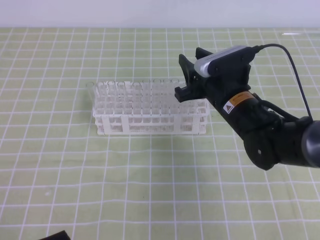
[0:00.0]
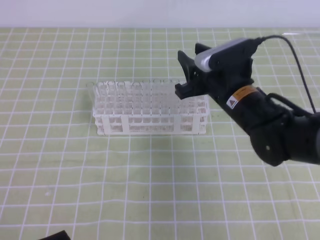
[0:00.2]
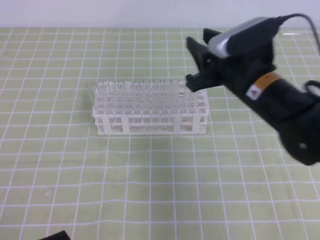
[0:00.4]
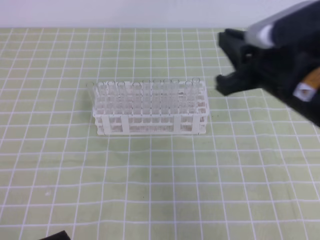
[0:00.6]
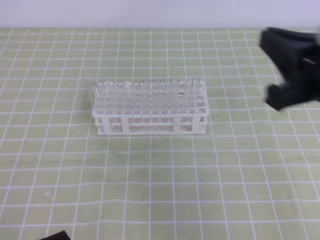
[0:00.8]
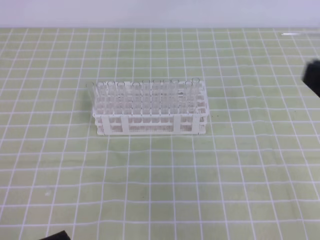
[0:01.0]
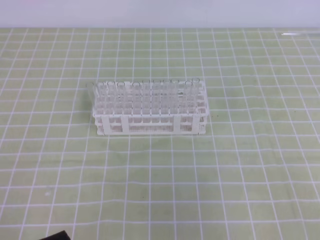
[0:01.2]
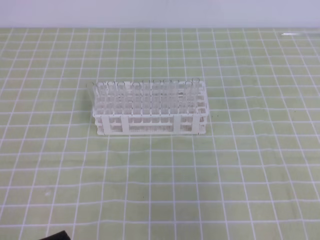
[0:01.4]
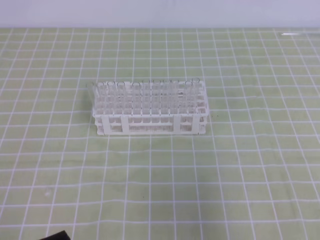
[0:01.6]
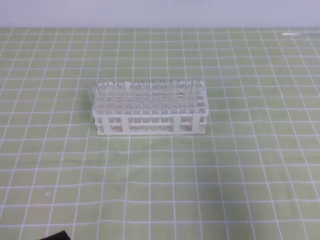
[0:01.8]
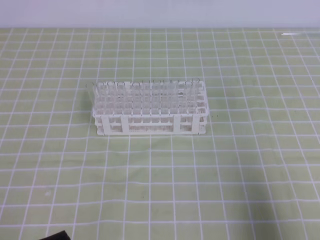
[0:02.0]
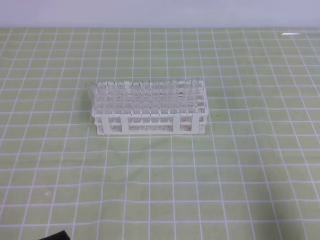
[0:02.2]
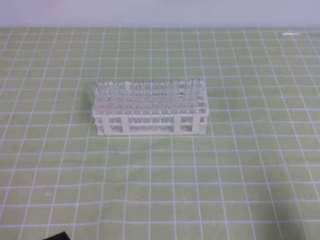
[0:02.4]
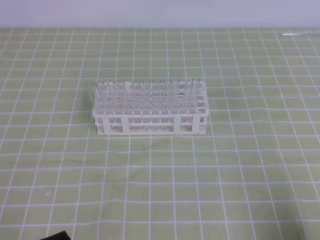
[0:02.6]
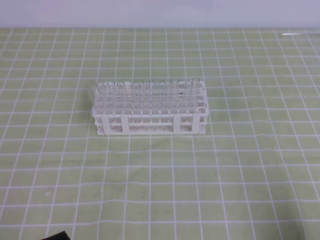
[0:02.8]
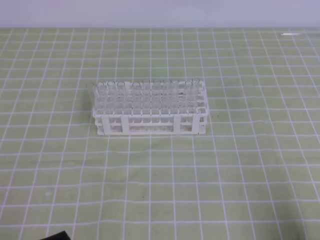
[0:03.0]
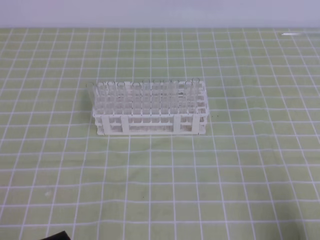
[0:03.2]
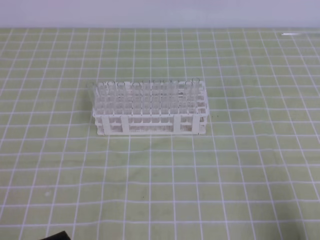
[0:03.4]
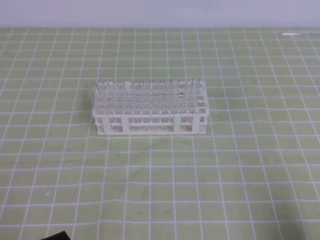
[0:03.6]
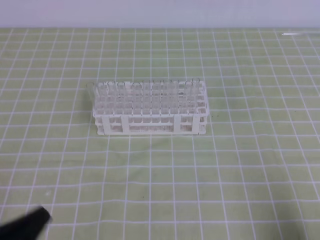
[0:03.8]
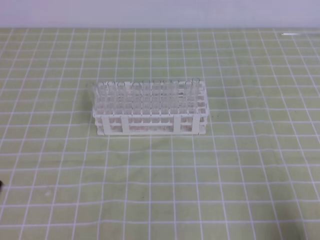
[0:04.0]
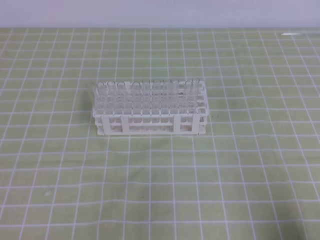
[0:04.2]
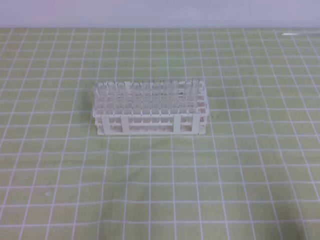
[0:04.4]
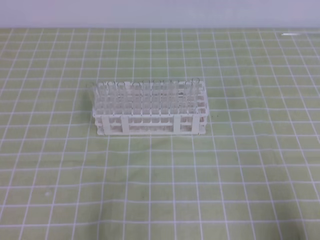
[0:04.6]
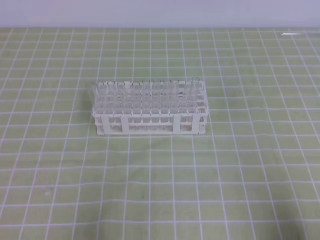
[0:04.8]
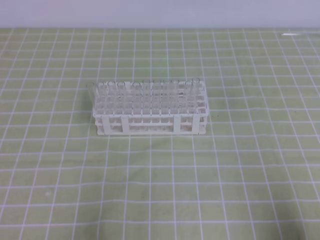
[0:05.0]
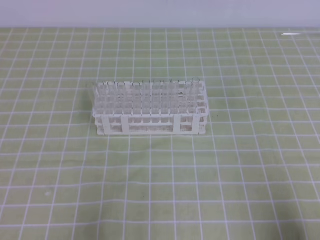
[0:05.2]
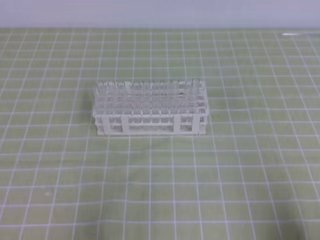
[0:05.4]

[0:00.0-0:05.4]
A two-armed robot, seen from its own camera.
0.0 to 1.4 s: The right gripper goes roughly 35 cm backward, to the right and upward, and closes.
1.4 to 2.8 s: The right gripper moves downward, approximately 20 cm.

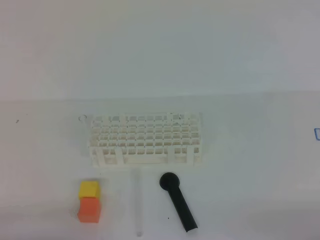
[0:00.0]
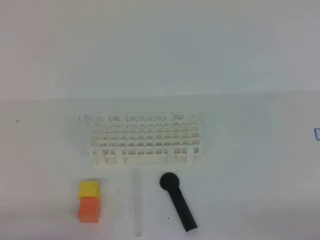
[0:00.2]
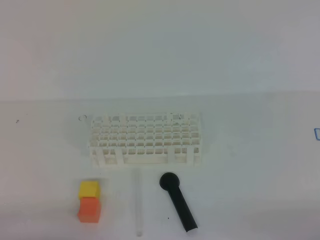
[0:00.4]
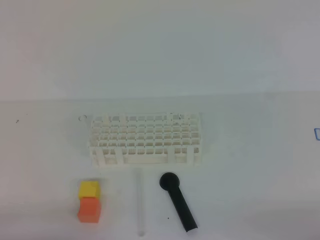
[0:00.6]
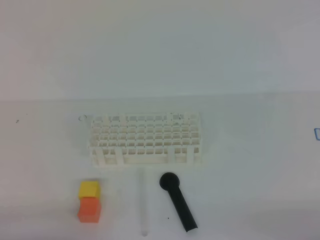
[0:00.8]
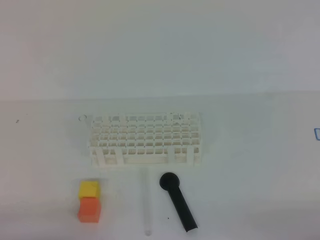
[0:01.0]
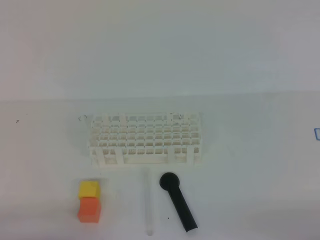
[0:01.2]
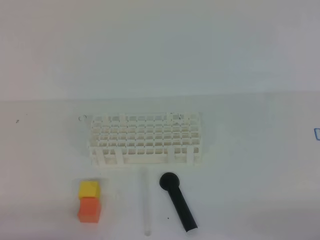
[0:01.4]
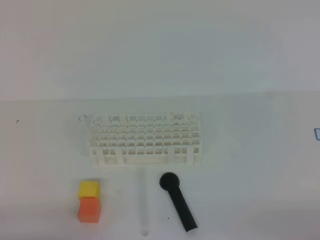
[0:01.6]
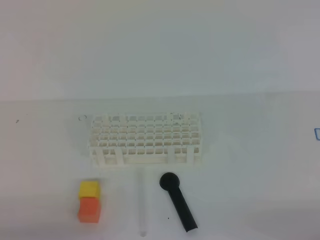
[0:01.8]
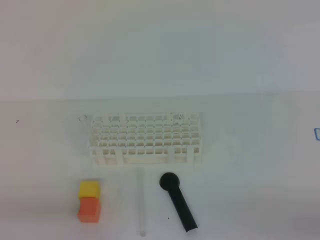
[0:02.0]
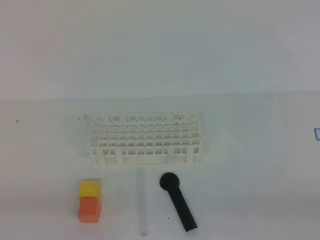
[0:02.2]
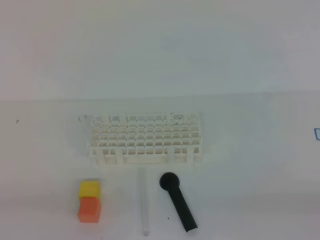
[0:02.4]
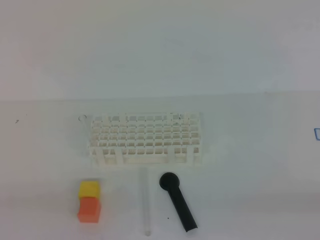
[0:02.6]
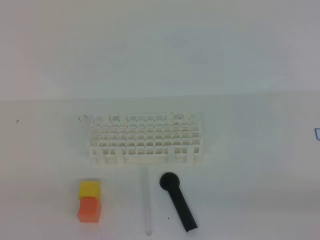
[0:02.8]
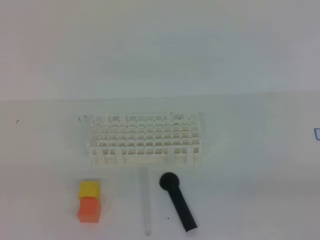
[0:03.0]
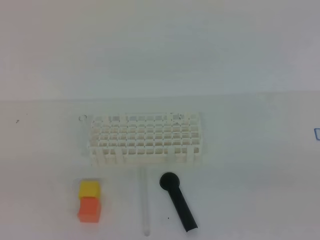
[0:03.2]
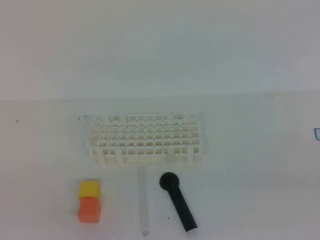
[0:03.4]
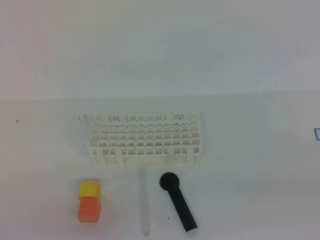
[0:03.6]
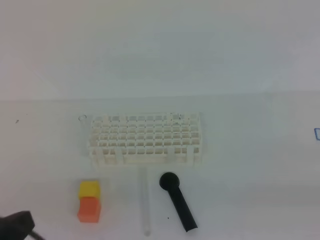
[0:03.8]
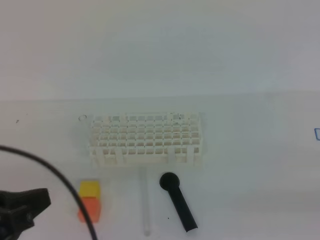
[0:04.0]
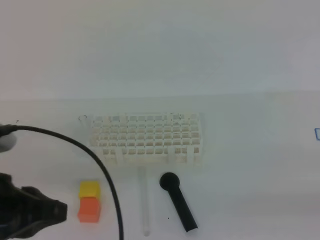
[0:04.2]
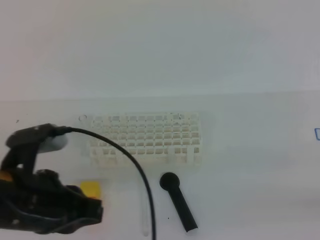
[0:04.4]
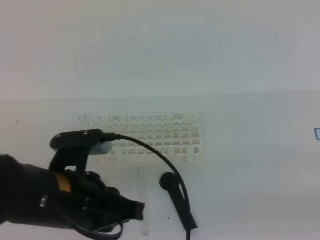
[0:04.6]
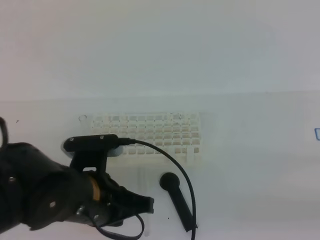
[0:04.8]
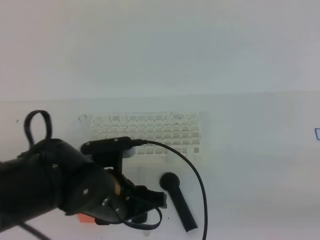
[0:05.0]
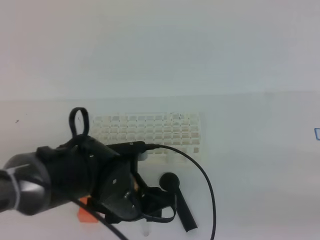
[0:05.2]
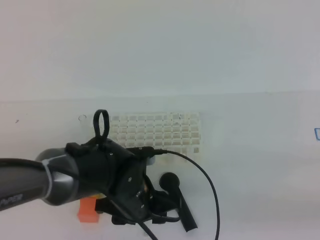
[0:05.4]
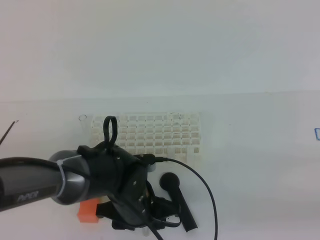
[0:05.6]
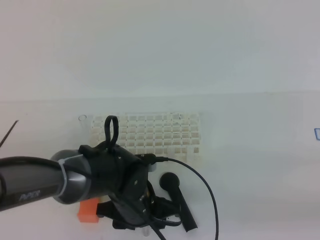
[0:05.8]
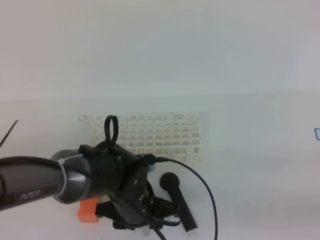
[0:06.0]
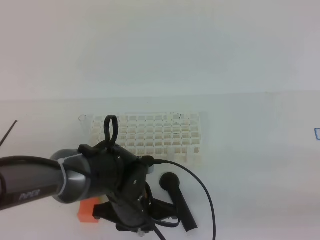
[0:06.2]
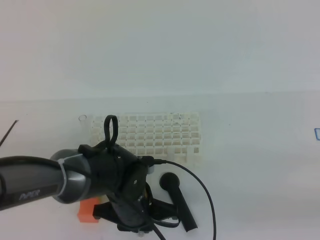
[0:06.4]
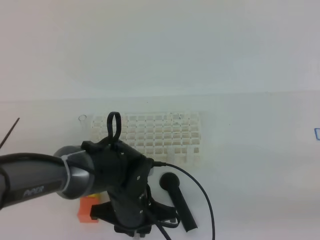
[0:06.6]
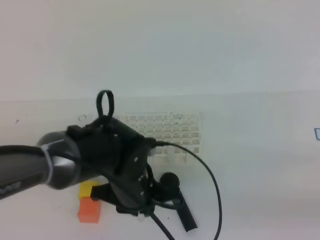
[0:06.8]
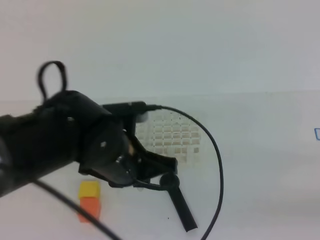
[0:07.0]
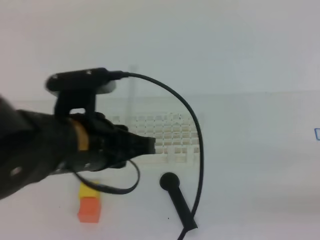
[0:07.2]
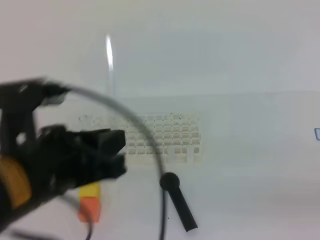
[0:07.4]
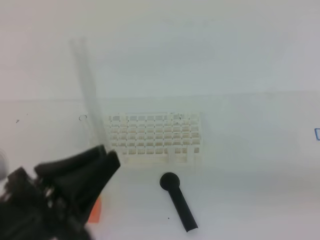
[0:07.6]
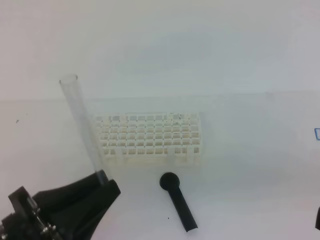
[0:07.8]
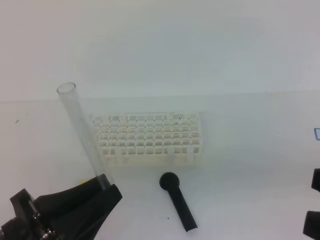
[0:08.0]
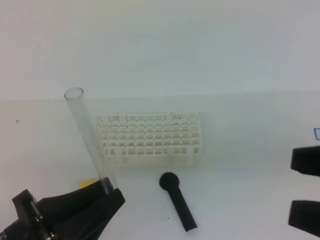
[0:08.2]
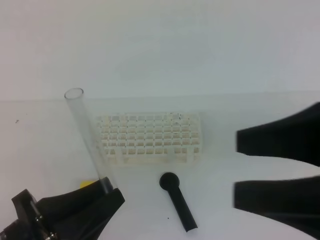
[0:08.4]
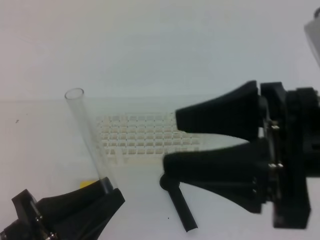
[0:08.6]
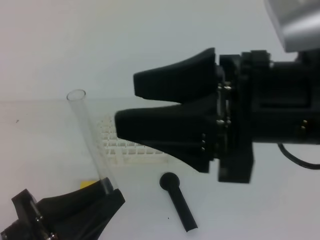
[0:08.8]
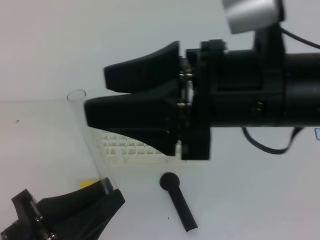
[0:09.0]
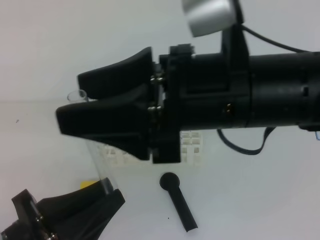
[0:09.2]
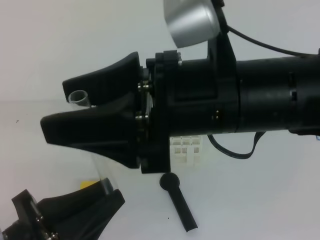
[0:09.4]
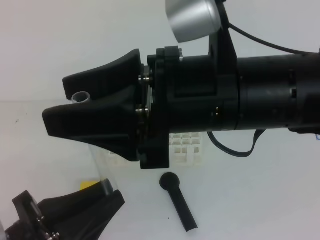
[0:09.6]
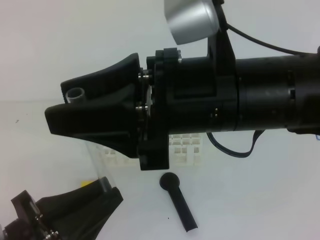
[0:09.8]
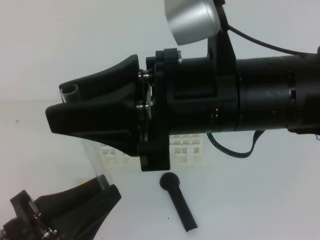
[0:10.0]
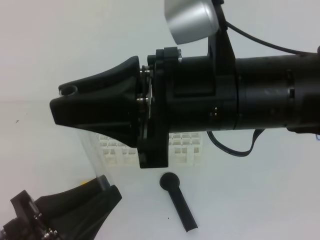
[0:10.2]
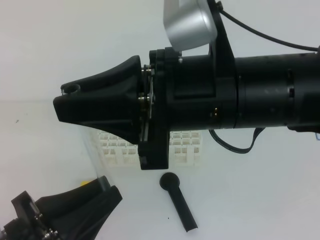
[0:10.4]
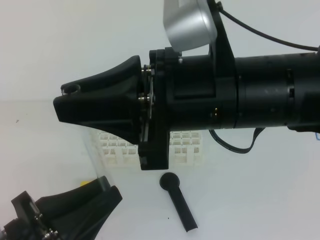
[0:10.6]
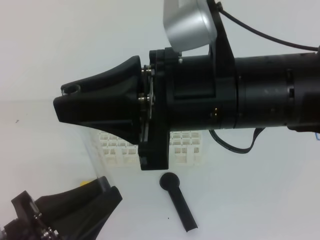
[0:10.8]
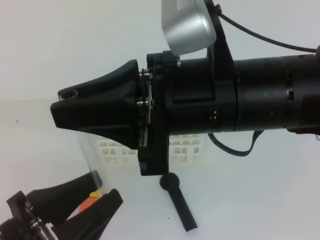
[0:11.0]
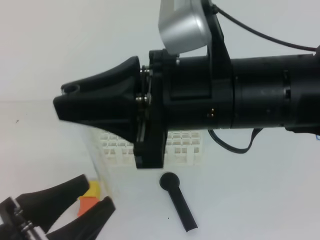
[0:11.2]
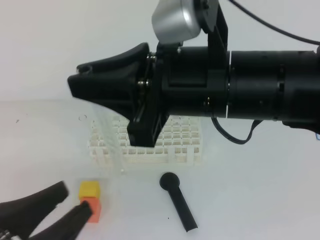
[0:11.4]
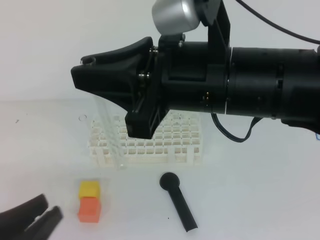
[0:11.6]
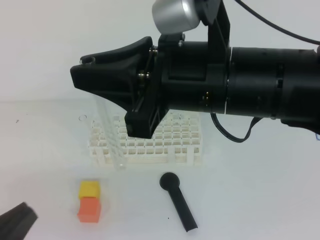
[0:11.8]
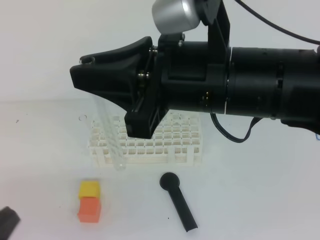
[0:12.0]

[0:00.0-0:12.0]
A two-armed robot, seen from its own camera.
0.0 to 1.6 s: Neither gripper changes place.
3.0 to 4.4 s: The left gripper goes about 15 cm forward and to the right.
4.4 to 6.0 s: The left gripper moves downward, to the right and forward, about 20 cm, and opens up. The right gripper opens.
6.0 to 7.6 s: The right gripper travels to the left by some 5 cm. Meanwhile the left gripper travels upward, backward and to the left by about 25 cm, and closes.
7.6 to 9.0 s: The right gripper moves to the left, forward and upward, approximately 25 cm, and opens its fingers. Meanwhile the left gripper shifts by some 5 cm.
9.0 to 10.4 s: The right gripper closes up.
10.4 to 12.0 s: The left gripper goes about 10 cm to the left, and opens and closes again.

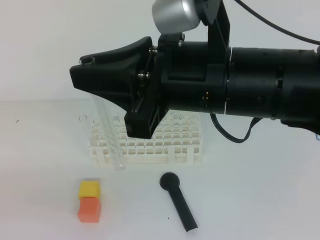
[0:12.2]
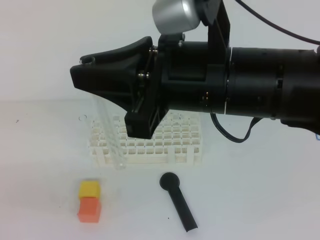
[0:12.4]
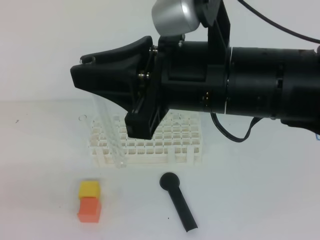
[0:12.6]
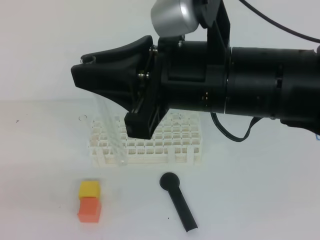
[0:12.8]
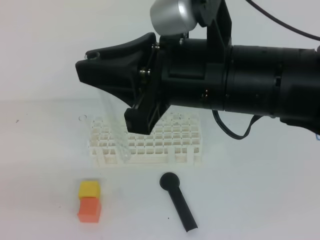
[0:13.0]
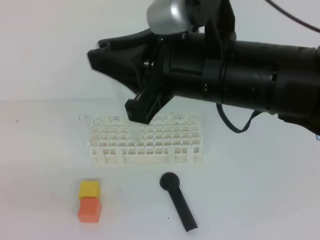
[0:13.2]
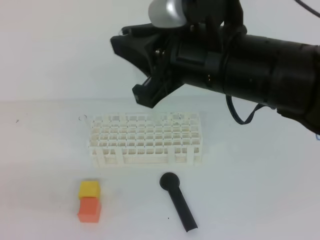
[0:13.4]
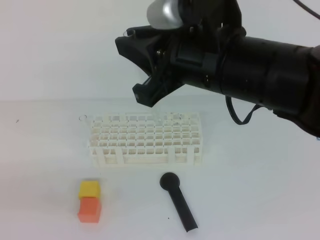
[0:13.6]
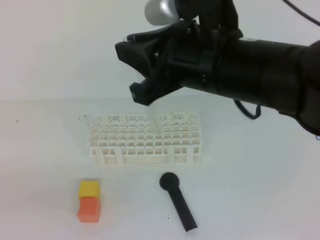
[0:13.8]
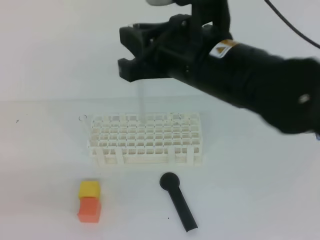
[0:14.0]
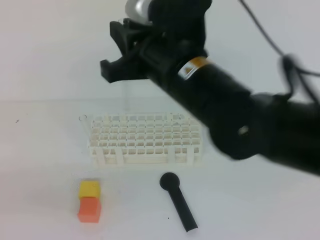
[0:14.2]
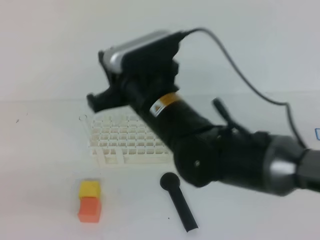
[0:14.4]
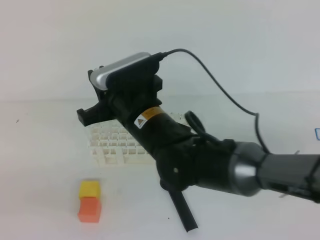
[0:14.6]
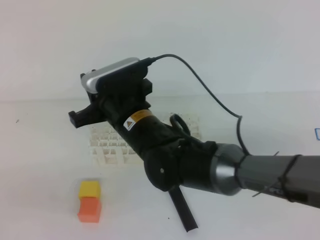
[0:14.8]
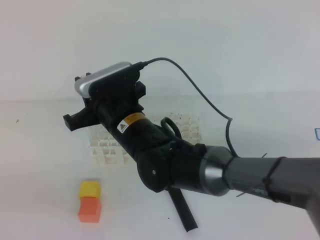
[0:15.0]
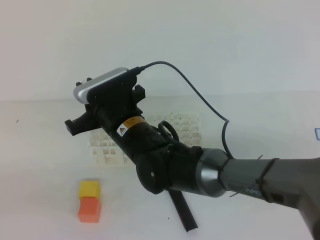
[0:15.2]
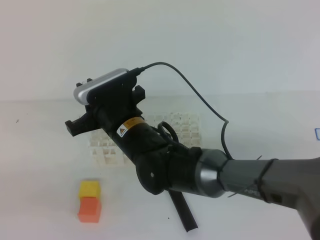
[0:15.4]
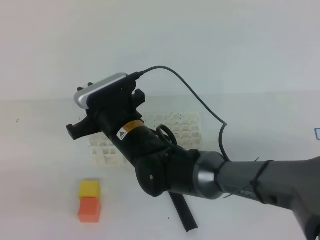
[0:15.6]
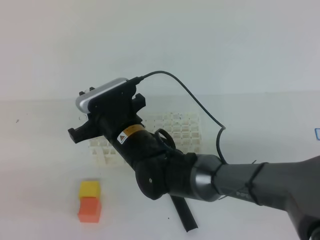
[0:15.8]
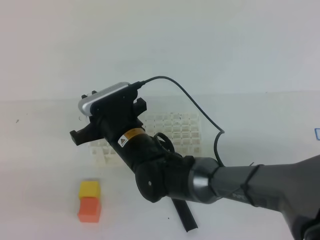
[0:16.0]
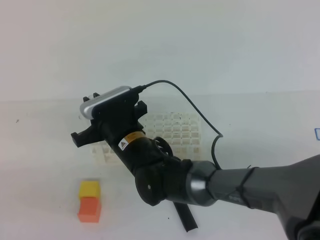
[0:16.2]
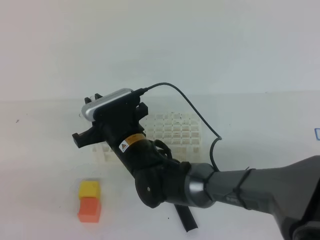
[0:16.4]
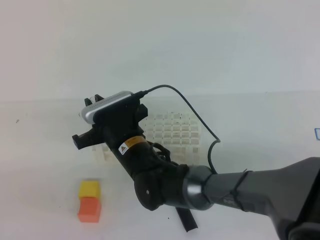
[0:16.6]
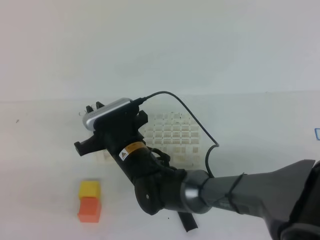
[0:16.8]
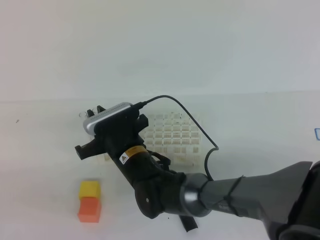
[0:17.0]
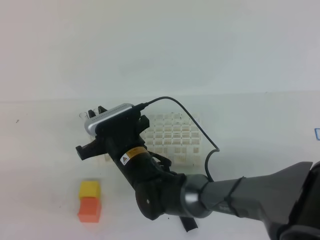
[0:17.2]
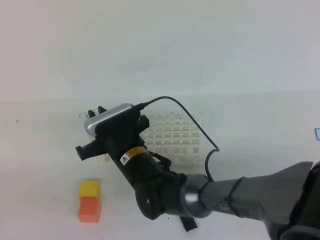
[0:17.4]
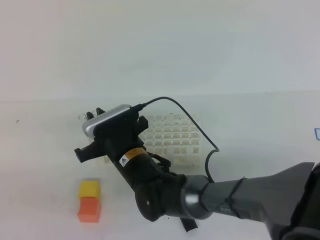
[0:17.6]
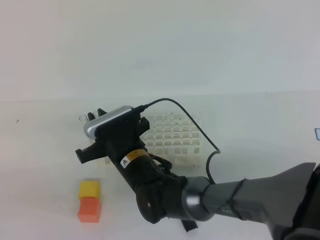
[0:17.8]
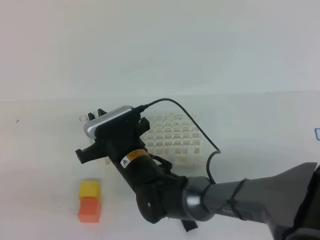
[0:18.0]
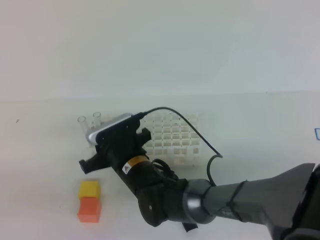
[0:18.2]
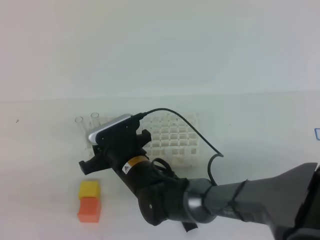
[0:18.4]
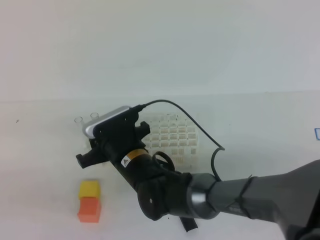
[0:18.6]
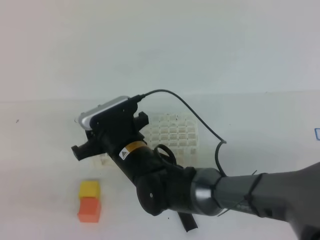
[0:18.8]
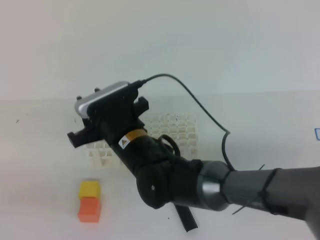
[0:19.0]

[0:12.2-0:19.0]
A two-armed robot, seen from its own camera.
13.6 to 15.0 s: The right gripper travels downward, to the left and forward by about 20 cm.
15.0 to 16.2 s: The right gripper travels downward by roughly 5 cm.
16.2 to 17.6 s: The grippers move only a little.
17.6 to 19.0 s: The right gripper goes roughly 5 cm upward.
